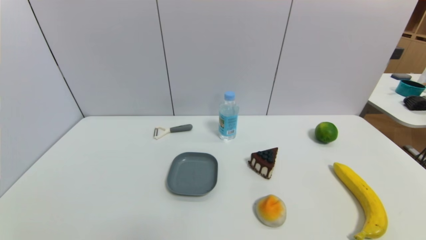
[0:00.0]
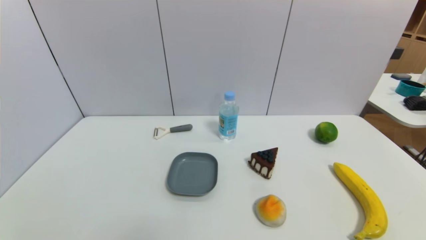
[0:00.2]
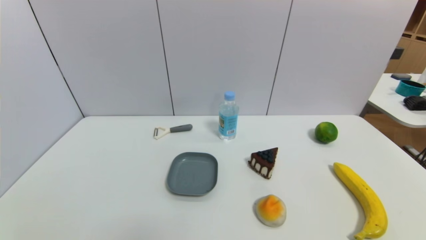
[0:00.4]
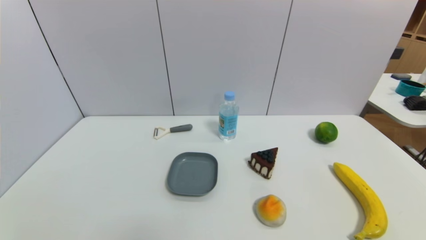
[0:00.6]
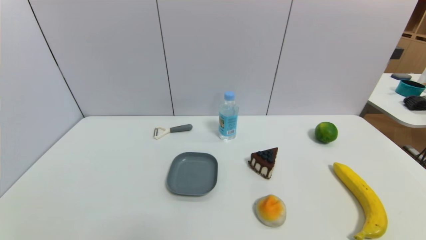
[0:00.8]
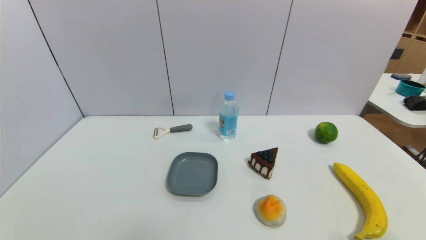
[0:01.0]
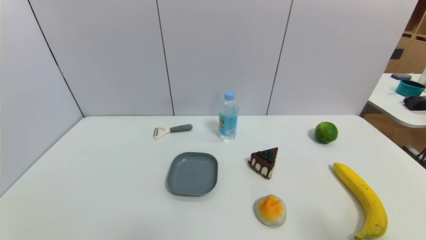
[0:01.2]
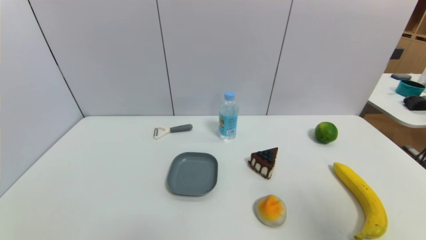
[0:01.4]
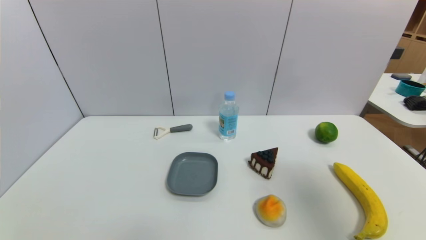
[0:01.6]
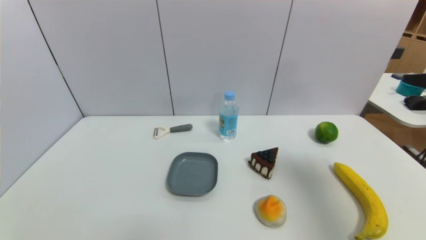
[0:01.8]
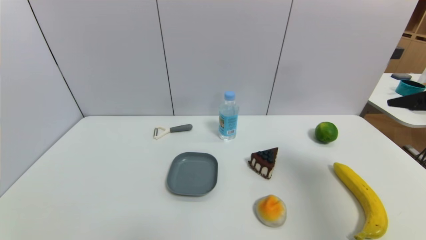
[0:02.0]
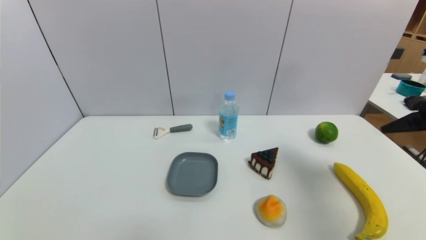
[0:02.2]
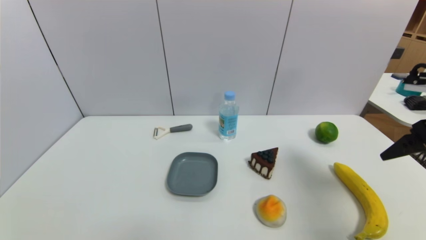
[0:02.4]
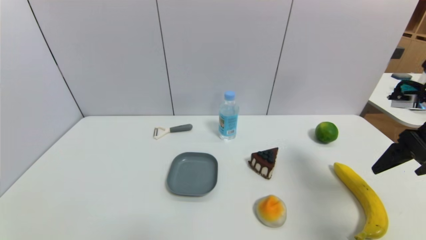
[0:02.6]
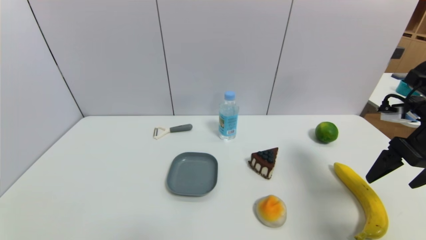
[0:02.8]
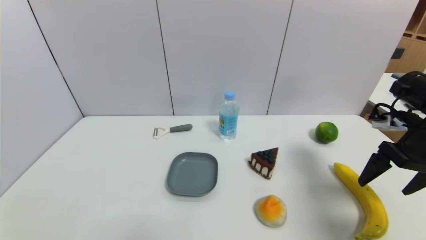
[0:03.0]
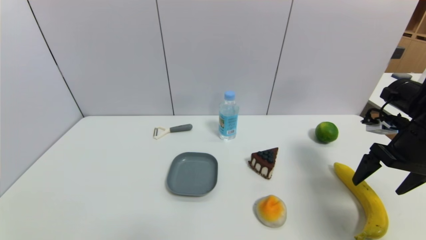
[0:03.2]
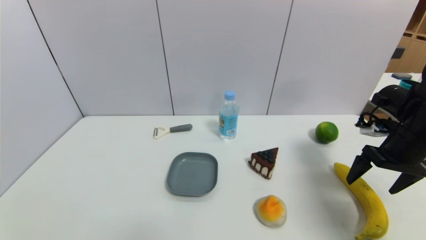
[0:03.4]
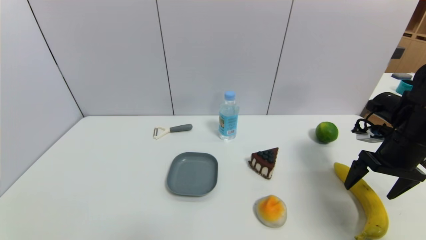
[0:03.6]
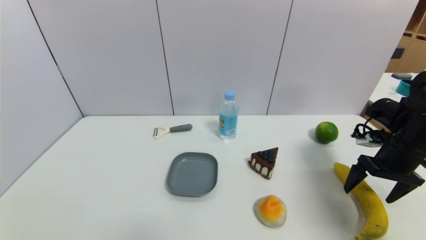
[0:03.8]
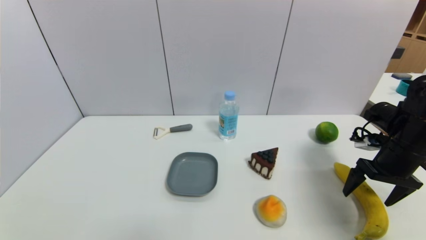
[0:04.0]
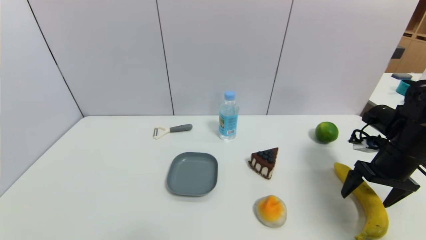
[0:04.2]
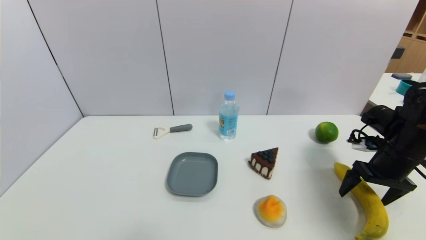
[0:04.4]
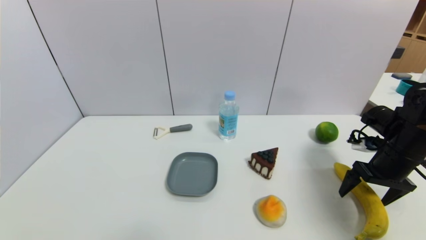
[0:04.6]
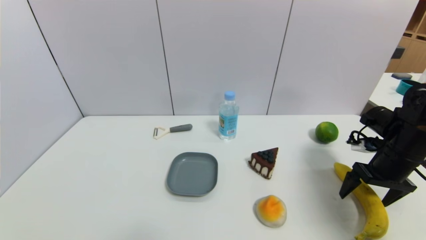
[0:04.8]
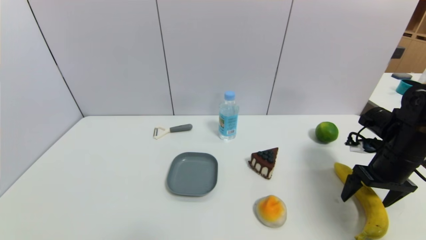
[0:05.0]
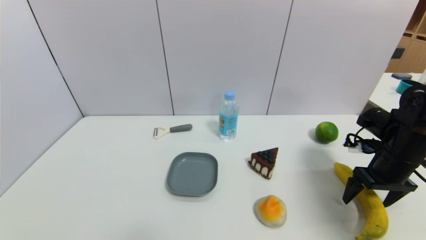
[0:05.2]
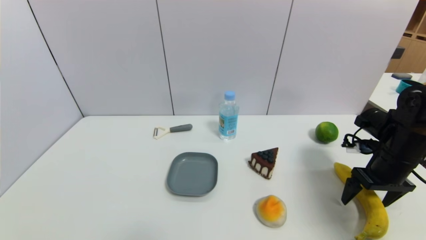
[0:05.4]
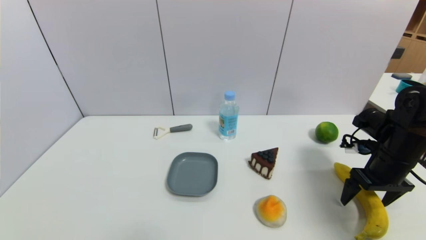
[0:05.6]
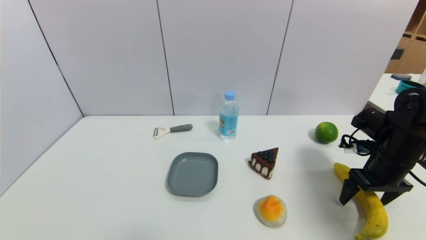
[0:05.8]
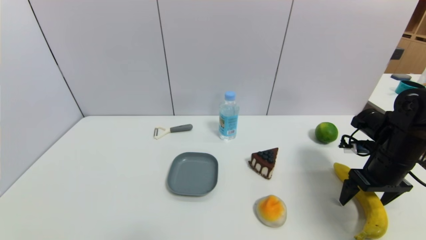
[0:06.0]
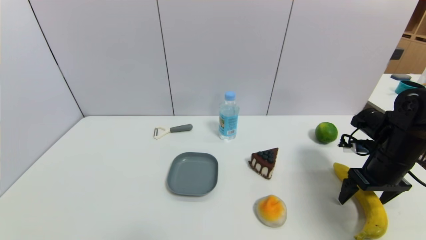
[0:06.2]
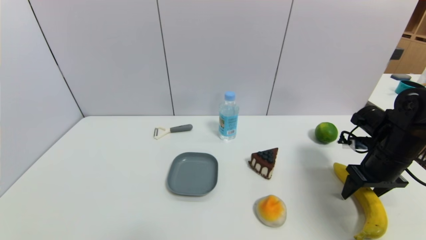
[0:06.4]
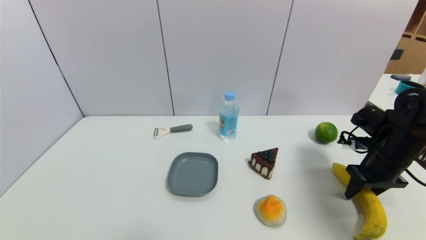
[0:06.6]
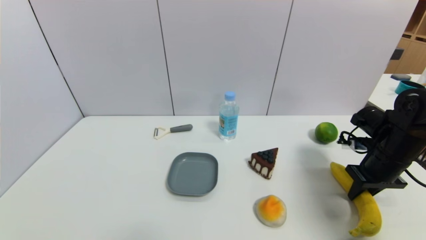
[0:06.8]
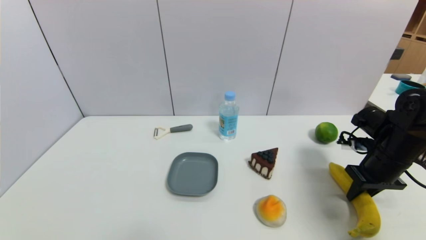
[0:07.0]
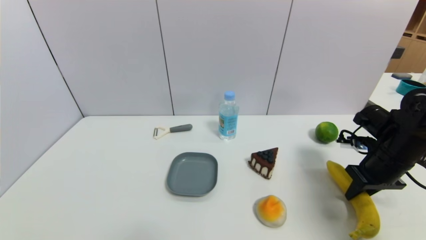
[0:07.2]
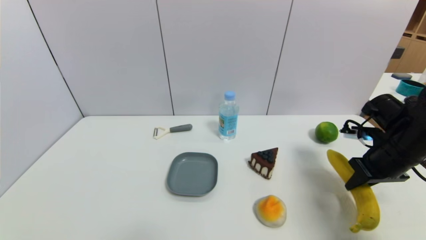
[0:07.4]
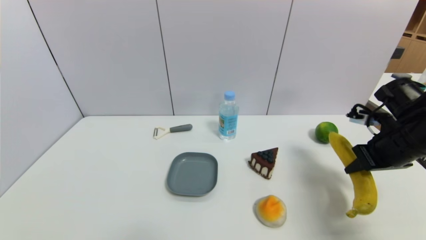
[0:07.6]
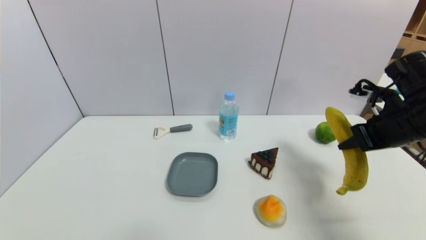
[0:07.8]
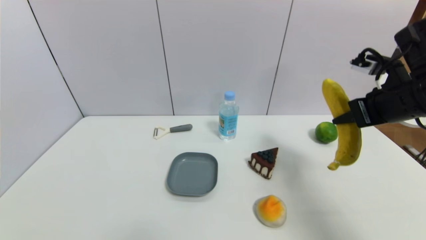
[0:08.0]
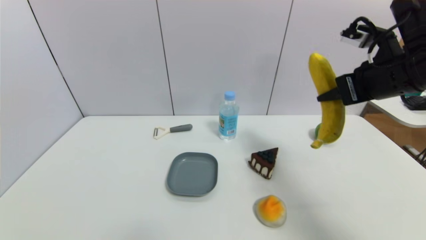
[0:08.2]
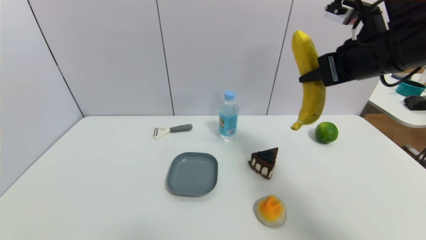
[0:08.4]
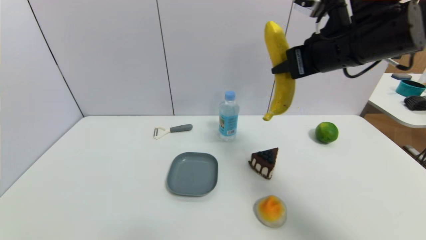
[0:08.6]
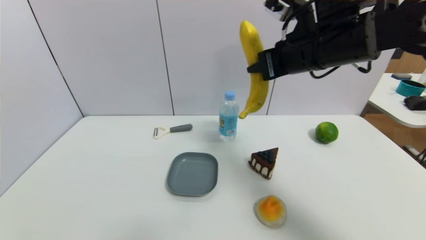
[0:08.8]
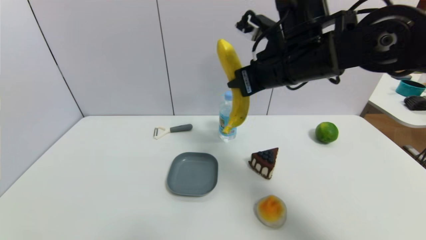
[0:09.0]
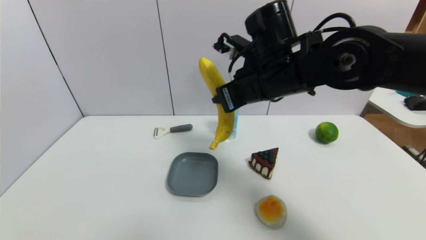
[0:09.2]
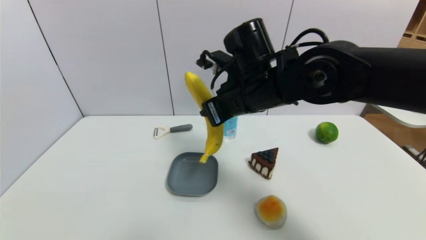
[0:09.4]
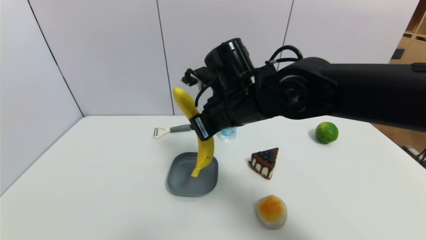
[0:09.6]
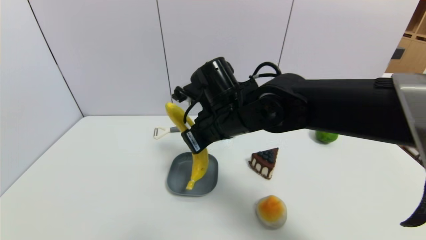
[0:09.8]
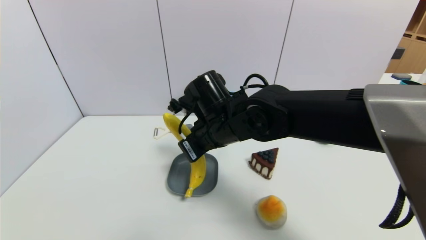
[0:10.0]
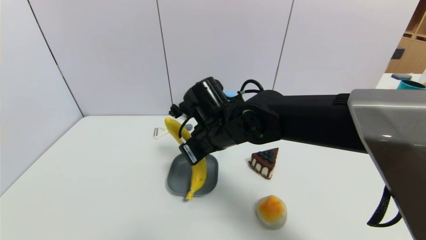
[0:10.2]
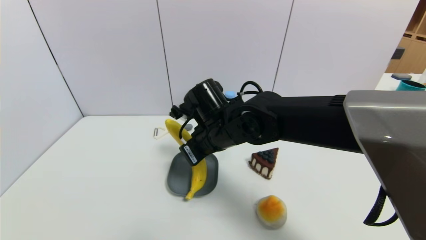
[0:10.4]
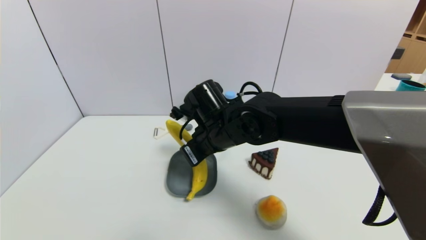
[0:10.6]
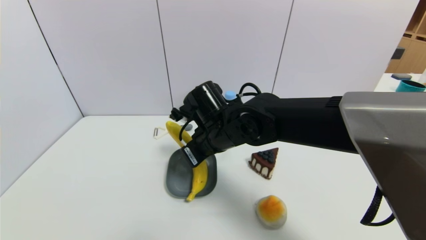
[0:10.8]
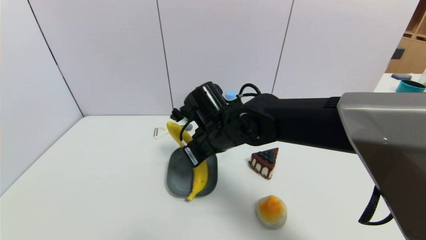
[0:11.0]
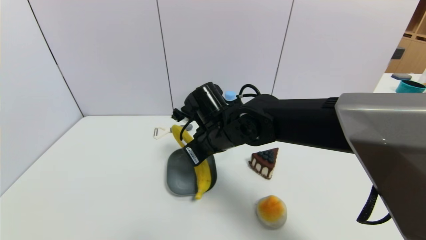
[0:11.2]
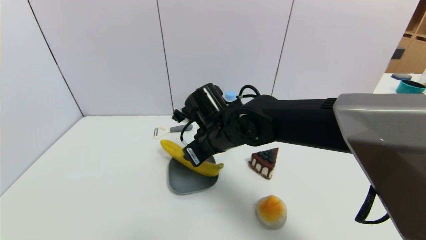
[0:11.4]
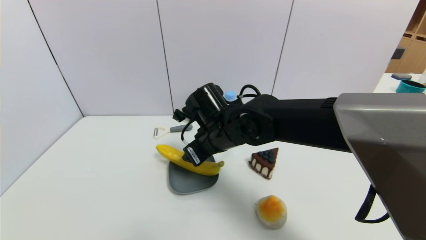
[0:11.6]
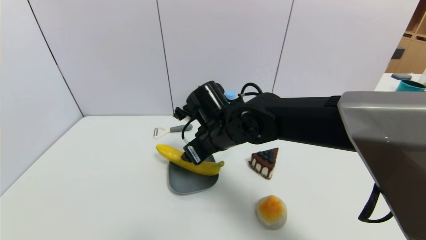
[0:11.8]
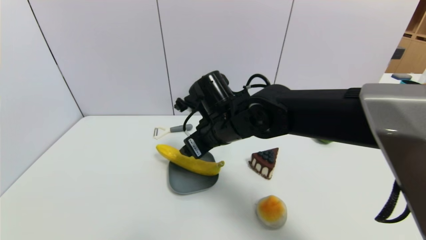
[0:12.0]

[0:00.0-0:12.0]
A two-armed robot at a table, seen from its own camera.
Task of the whole recording: use a gripper to pick the target object and place on the dish.
Step, 0:00.0 to 0:07.0: Grasp the banana with the right gripper.
Step, 0:07.2 to 0:12.0: Place the banana on the dish with the right gripper.
0:00.0 to 0:01.6: The right gripper shifts approximately 30 cm upward and forward.
0:01.6 to 0:03.0: The right gripper is displaced forward and downward by about 15 cm.
0:03.0 to 0:04.4: The right gripper moves downward, some 10 cm.
0:04.4 to 0:06.0: There are only small adjustments of the grippers.
0:06.0 to 0:07.6: The right gripper goes approximately 5 cm upward, and closes its fingers.
0:07.6 to 0:09.0: The right gripper shifts roughly 25 cm to the left and upward.
0:09.0 to 0:10.4: The right gripper shifts approximately 15 cm downward and to the left.
0:10.4 to 0:12.0: The right gripper opens its fingers.

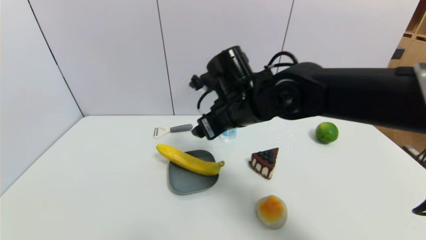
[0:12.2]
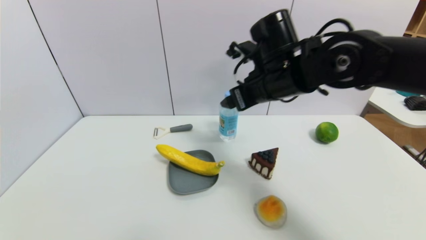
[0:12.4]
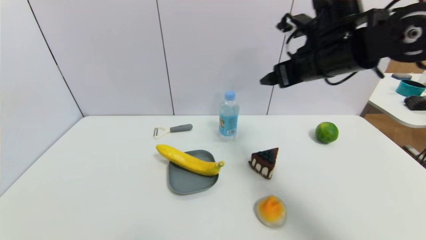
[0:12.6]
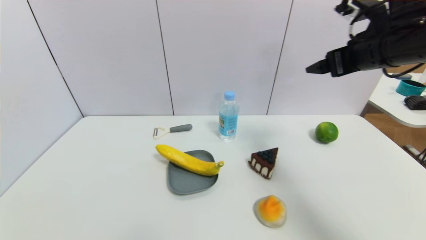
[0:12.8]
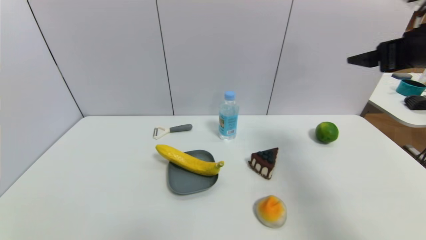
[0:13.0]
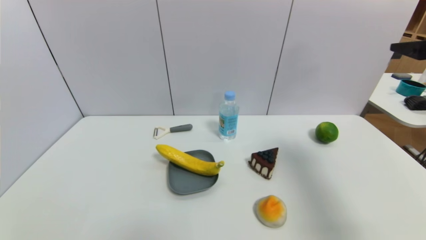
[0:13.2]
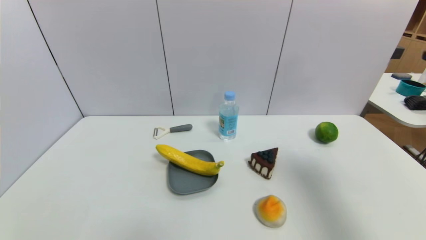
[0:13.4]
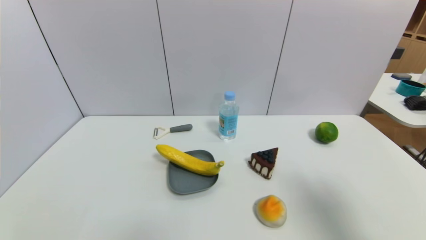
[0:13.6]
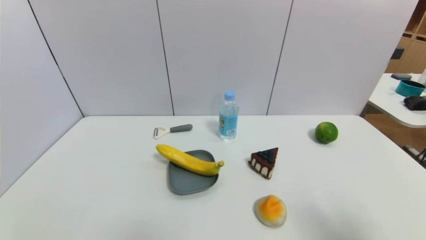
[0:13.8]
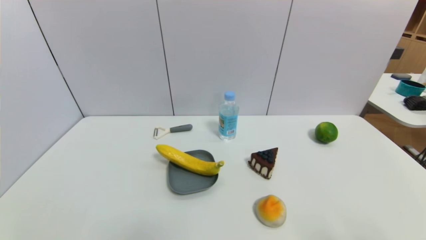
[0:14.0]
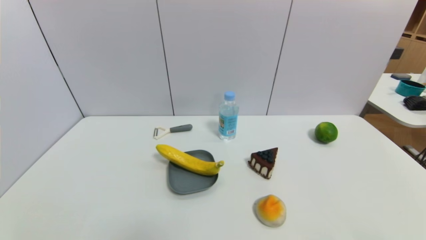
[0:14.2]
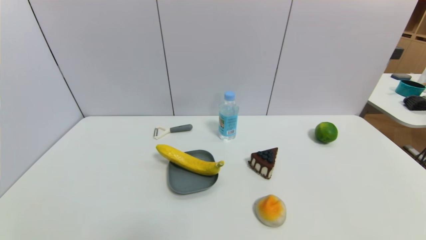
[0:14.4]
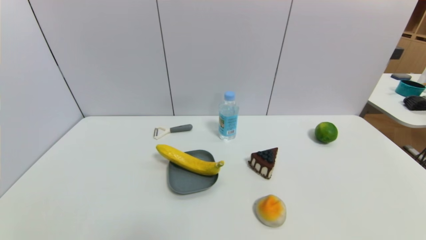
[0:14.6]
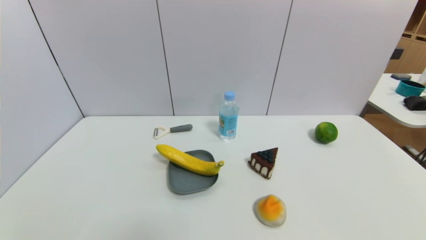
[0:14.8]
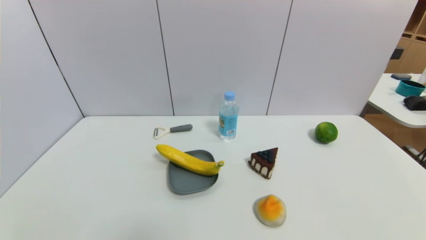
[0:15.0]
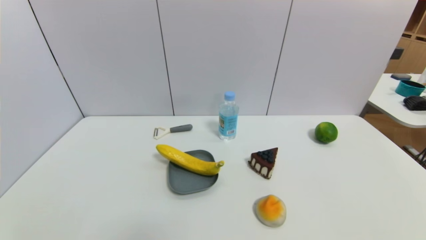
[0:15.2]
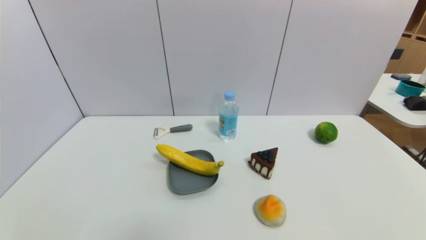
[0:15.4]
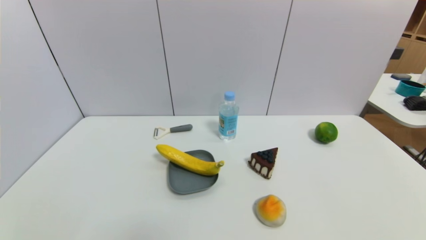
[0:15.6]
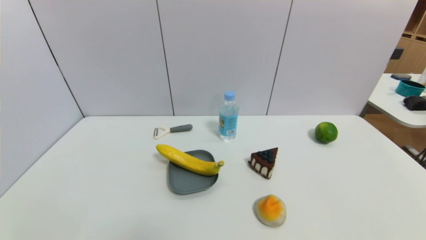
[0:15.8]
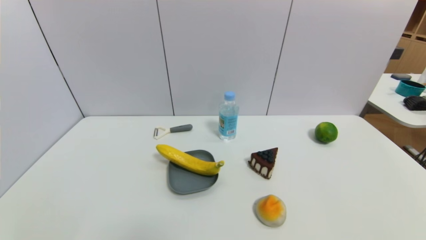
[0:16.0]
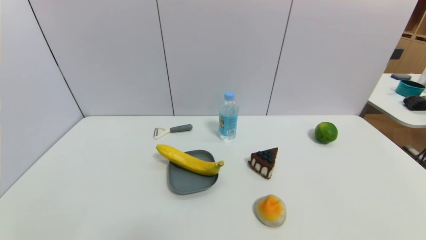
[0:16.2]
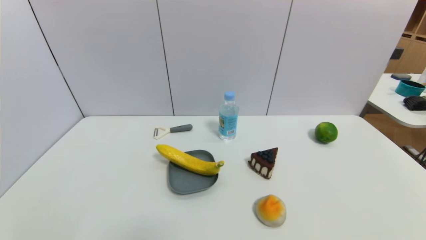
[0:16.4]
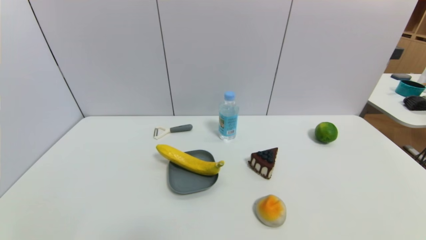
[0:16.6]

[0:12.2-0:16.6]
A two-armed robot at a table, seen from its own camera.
Task of the whole recording: use a gripper to pick the target object and place on the dish.
0:12.2 to 0:13.6: The right gripper is displaced to the right and backward by roughly 35 cm.
0:13.6 to 0:15.2: The right gripper travels downward and backward by approximately 25 cm.
0:15.2 to 0:16.6: Both grippers stay about where they are.
